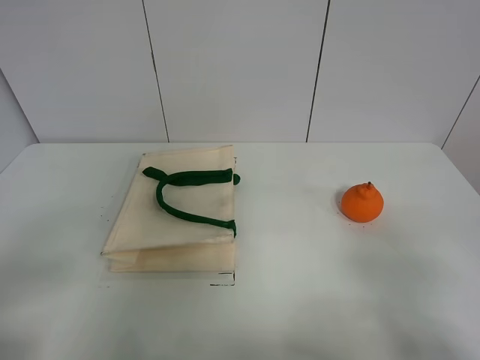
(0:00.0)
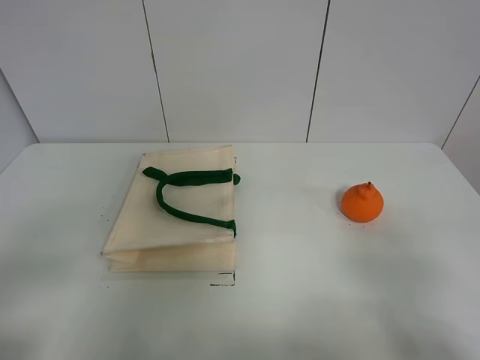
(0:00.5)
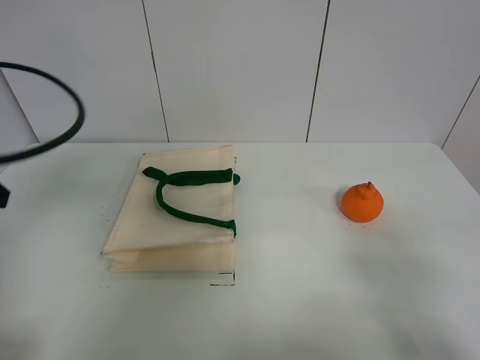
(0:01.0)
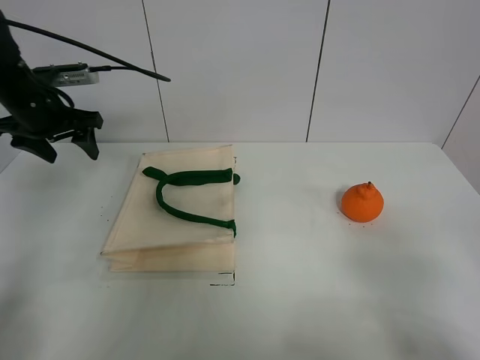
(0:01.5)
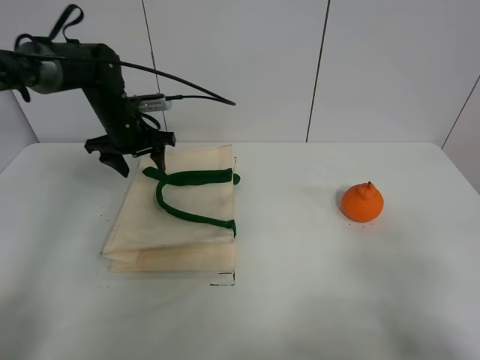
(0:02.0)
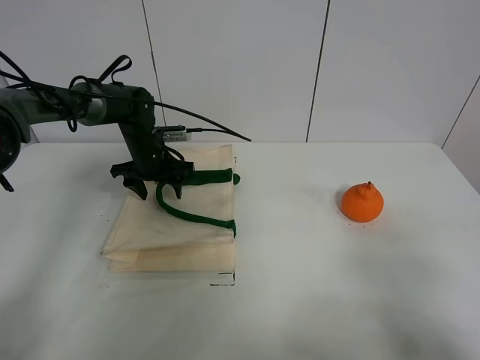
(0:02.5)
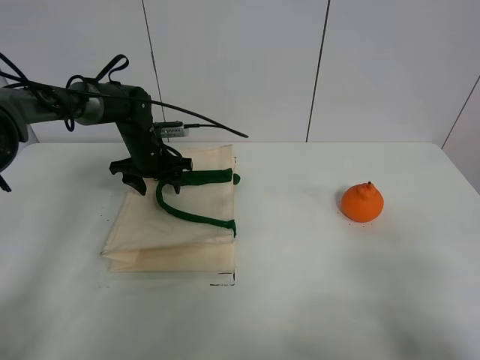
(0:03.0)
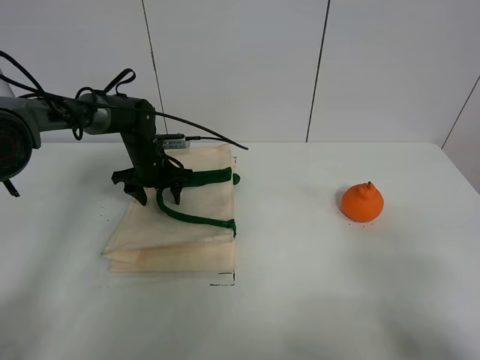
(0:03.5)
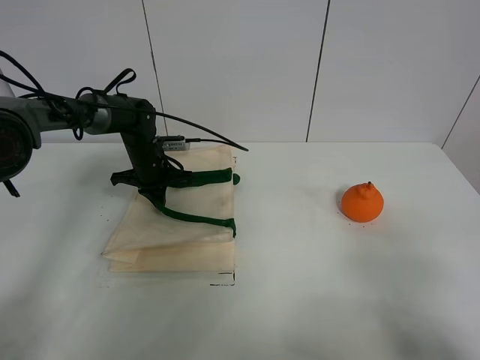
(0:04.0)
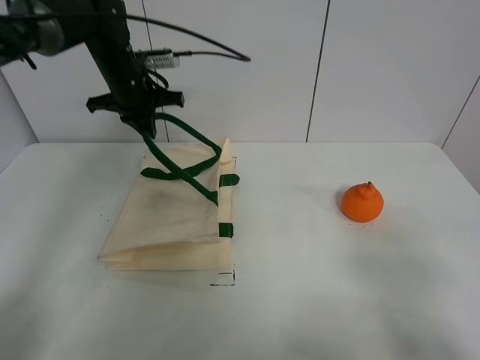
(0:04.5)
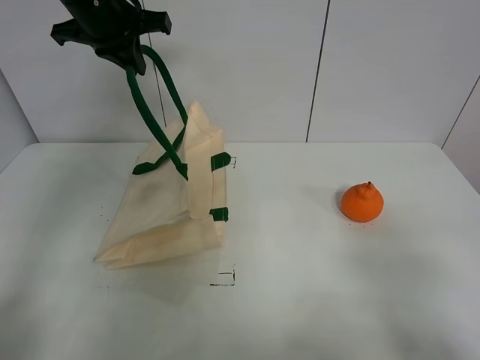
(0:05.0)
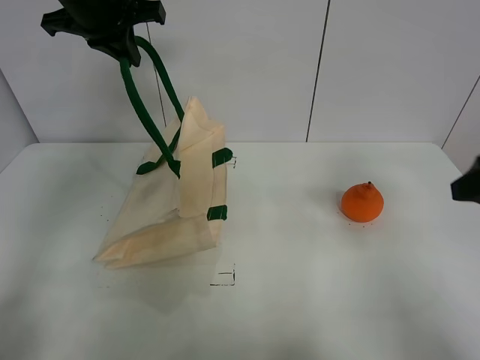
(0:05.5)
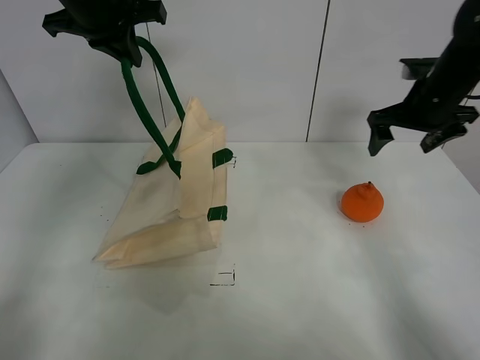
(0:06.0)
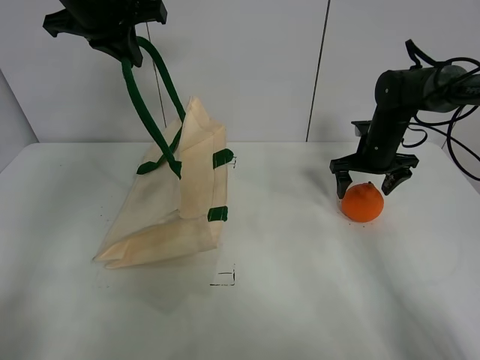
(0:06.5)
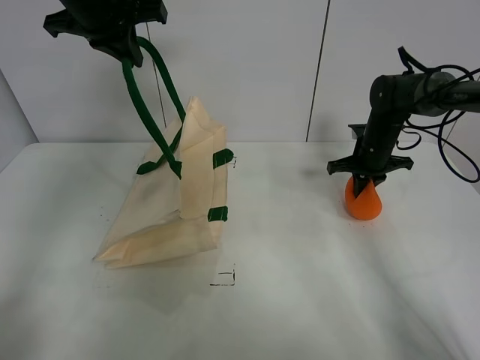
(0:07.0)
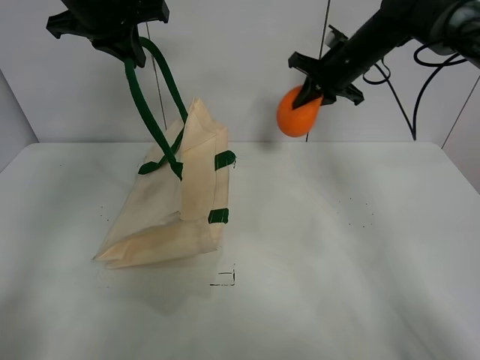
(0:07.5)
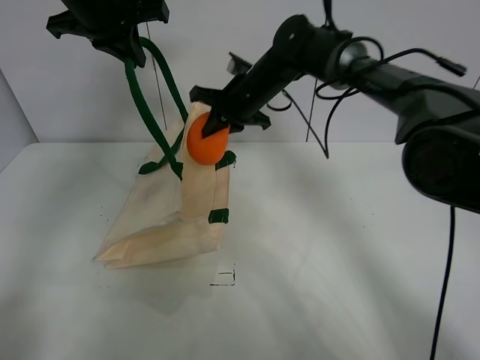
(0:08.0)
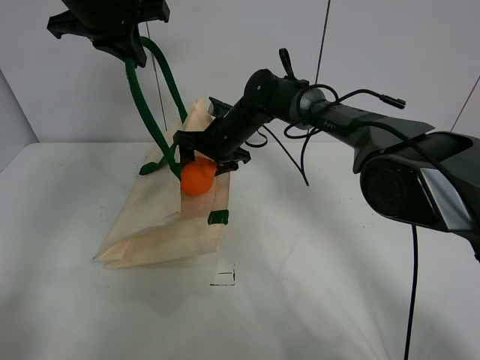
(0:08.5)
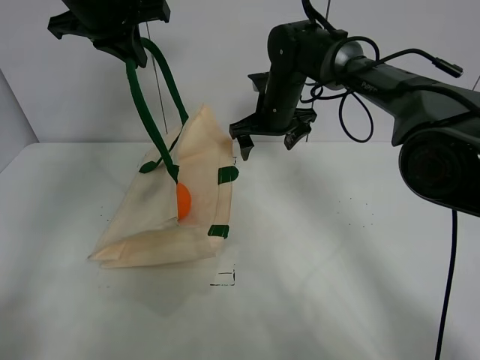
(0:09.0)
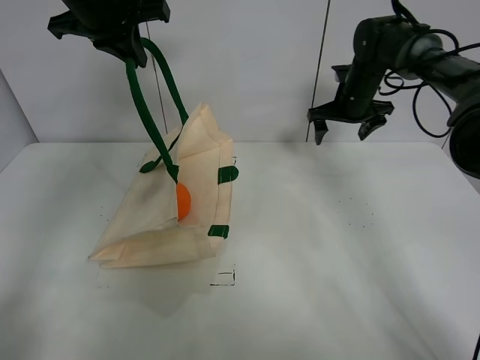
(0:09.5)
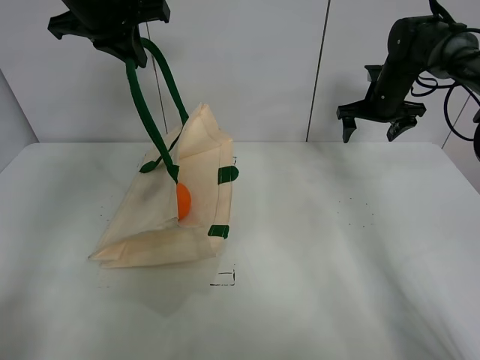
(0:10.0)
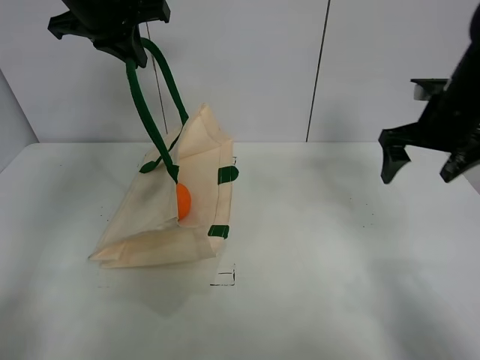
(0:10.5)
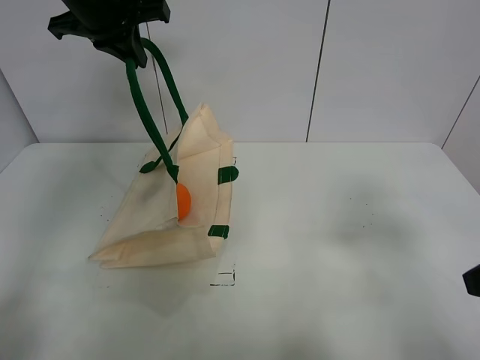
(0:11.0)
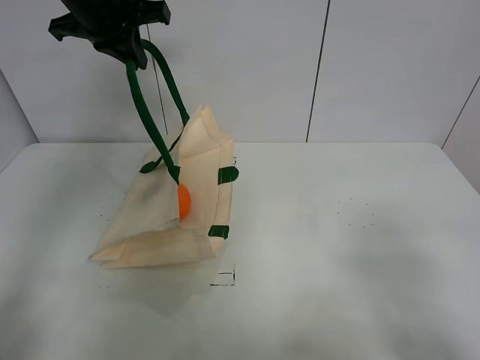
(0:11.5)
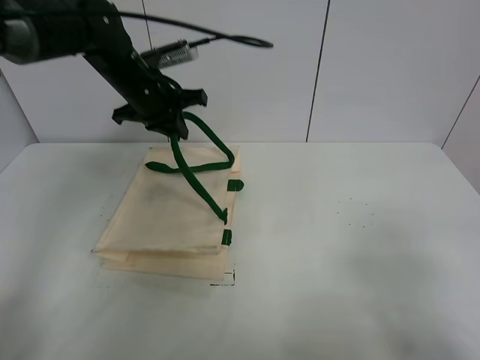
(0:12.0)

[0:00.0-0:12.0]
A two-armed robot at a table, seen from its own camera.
Task of the whole recording: open the white linen bag and put the orange in the bag.
Step, 0:00.0 to 0:05.0: Lift the handbag with left gripper.
Step, 0:05.5 to 0:07.0: Grasp the orange with right gripper.
Step, 0:07.5 to 0:09.0: Place the orange in the handbag with right gripper.
0:02.0 to 0:04.0: The left gripper goes approximately 10 cm downward and to the right, and closes its fingers.
0:04.0 to 0:06.0: The right gripper shifts about 35 cm forward. The left gripper moves upward, some 30 cm.
0:06.0 to 0:08.0: The right gripper goes approximately 25 cm to the left, and closes.
0:08.0 to 0:10.0: The right gripper travels to the right by roughly 25 cm, and opens.
0:10.0 to 0:12.0: The left gripper moves downward, about 10 cm; the right gripper travels backward by roughly 50 cm.

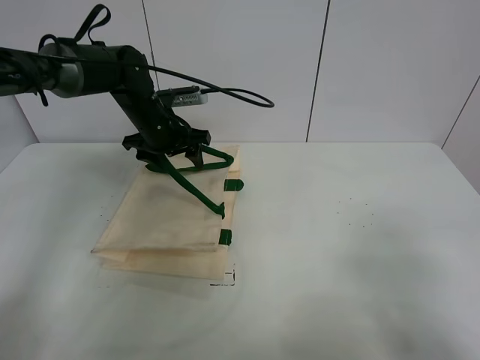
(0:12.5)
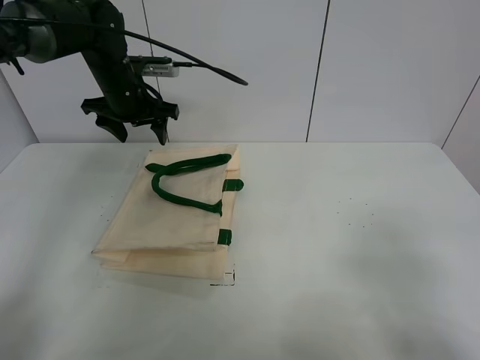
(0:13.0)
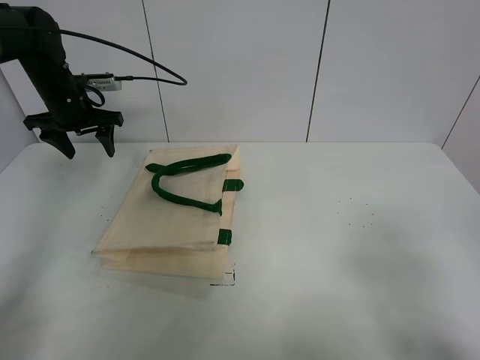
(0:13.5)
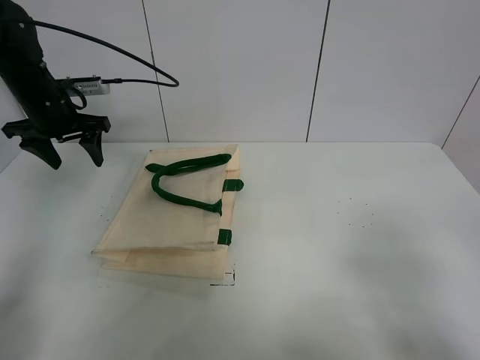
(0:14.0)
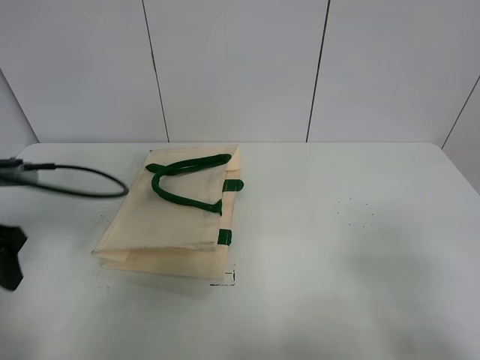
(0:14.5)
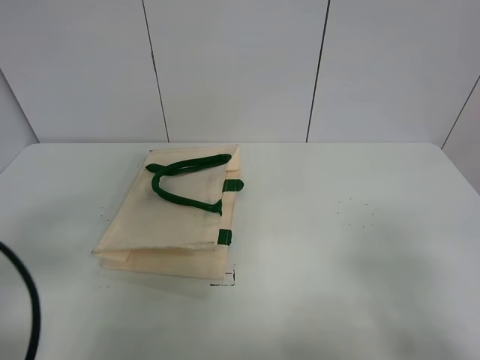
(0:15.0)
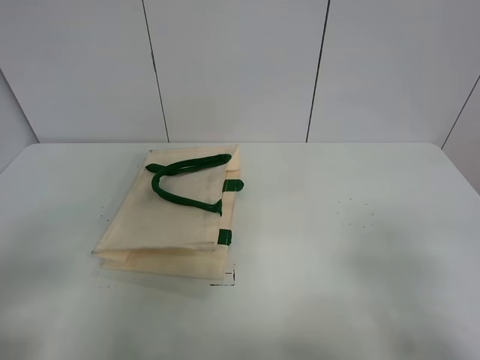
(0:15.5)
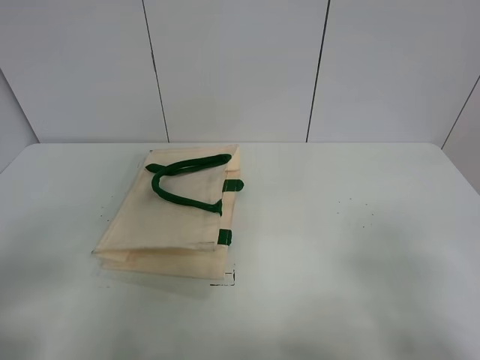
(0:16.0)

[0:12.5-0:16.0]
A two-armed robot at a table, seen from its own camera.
Task of the whole recording: open the white linen bag and put the orange in the bag.
0:12.5 to 0:14.5: The left gripper travels backward and to the left by some 25 cm.
0:14.5 to 0:16.0: The left gripper travels backward by some 20 cm.
